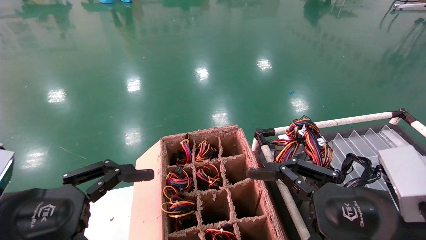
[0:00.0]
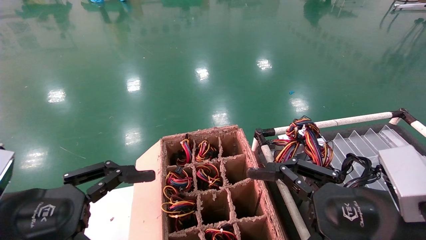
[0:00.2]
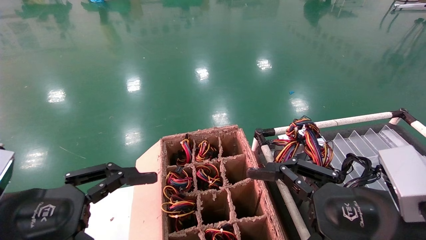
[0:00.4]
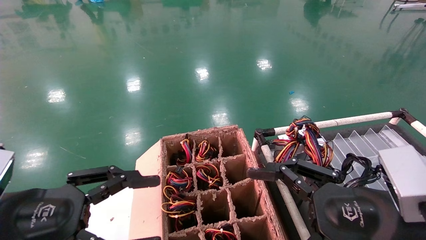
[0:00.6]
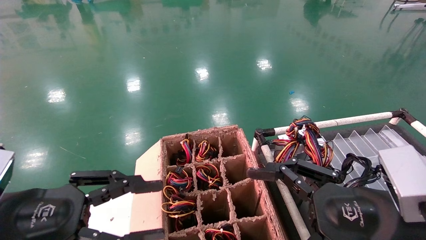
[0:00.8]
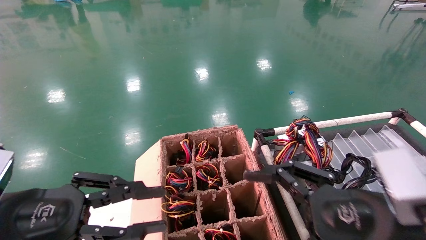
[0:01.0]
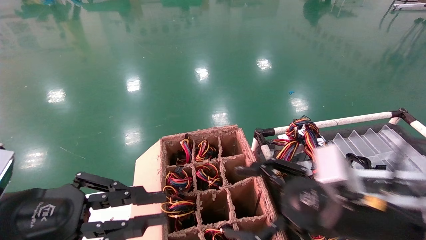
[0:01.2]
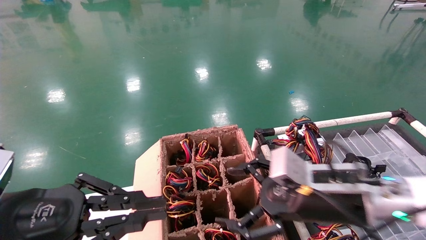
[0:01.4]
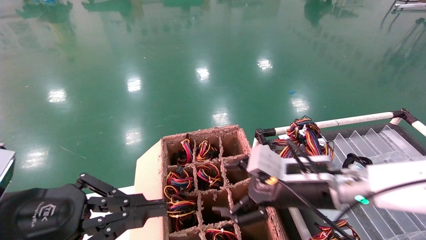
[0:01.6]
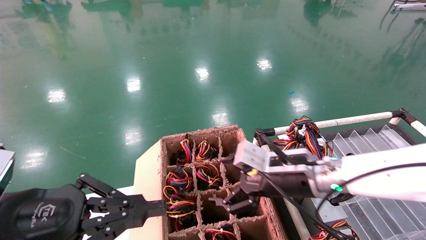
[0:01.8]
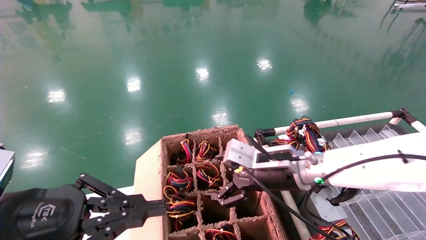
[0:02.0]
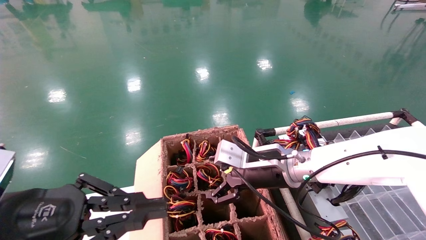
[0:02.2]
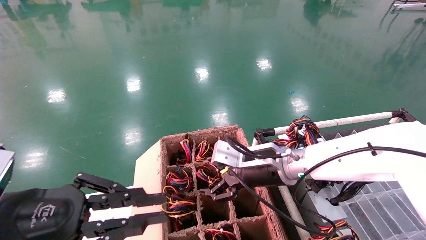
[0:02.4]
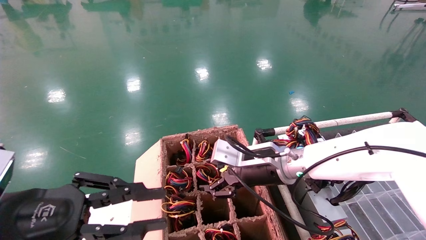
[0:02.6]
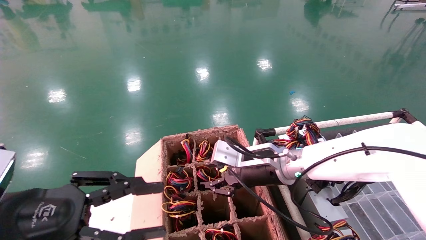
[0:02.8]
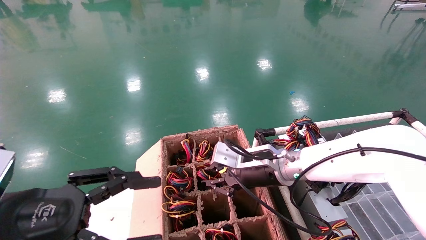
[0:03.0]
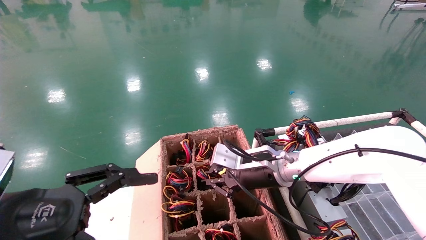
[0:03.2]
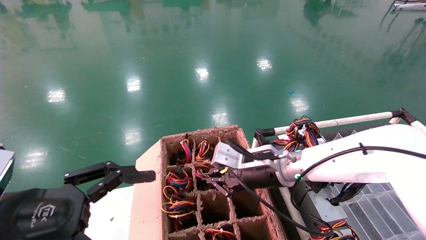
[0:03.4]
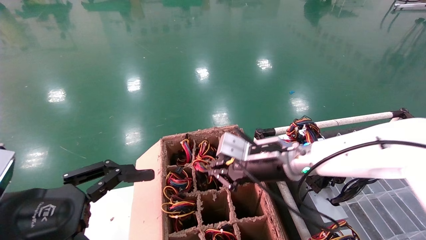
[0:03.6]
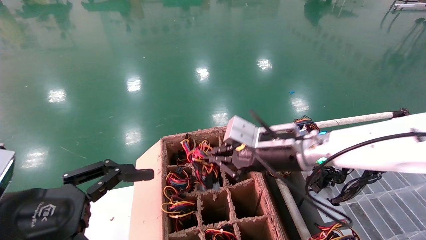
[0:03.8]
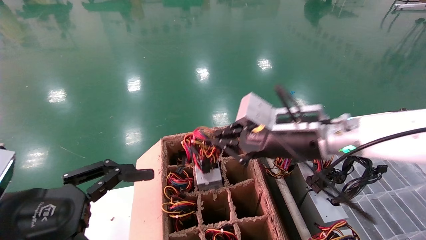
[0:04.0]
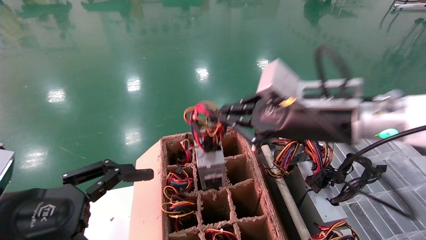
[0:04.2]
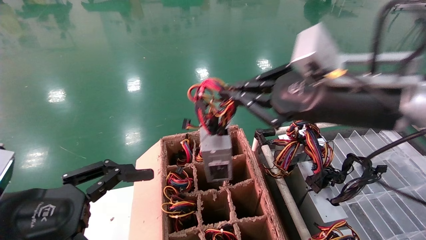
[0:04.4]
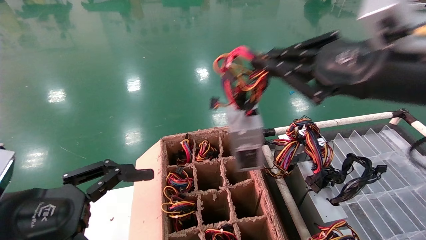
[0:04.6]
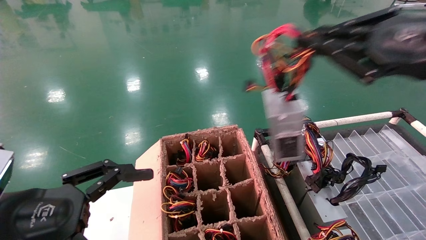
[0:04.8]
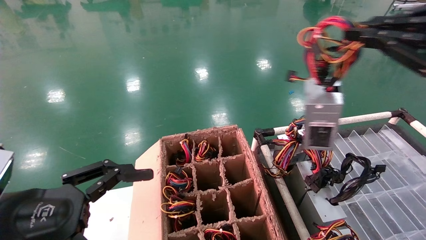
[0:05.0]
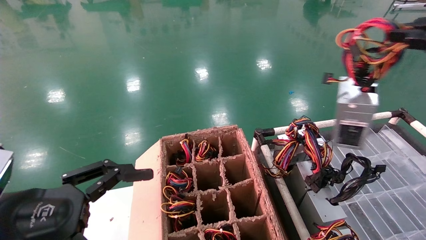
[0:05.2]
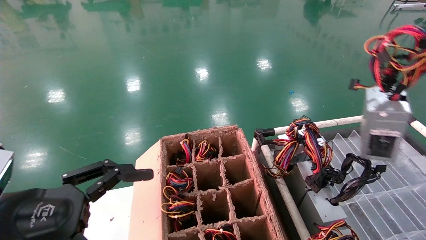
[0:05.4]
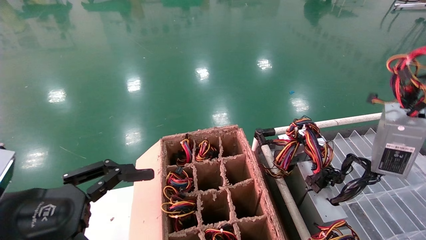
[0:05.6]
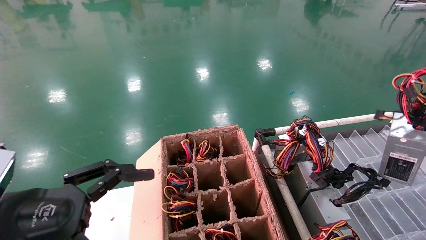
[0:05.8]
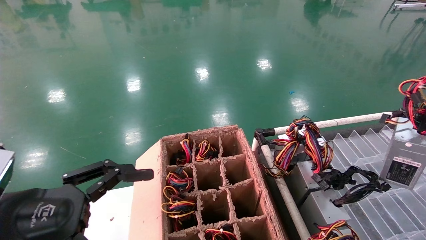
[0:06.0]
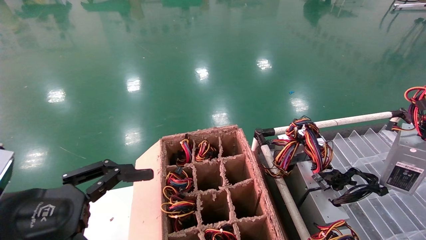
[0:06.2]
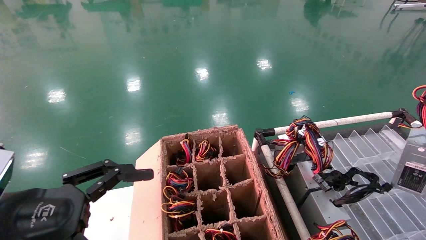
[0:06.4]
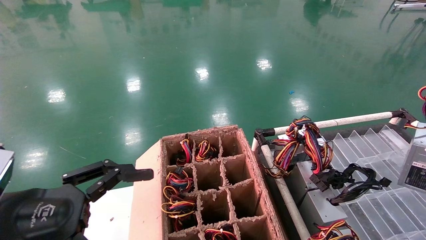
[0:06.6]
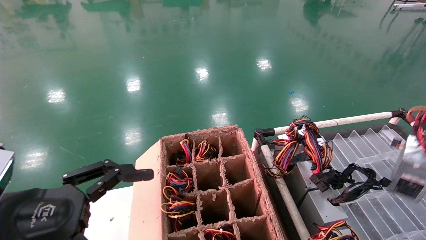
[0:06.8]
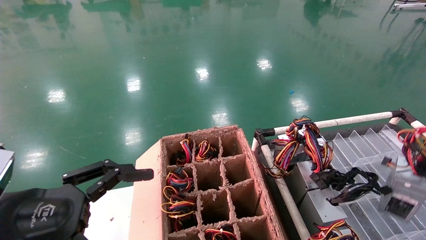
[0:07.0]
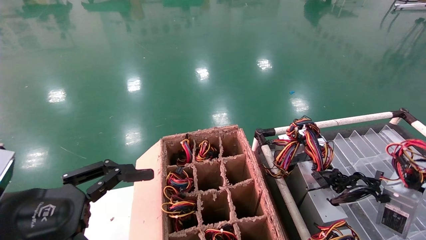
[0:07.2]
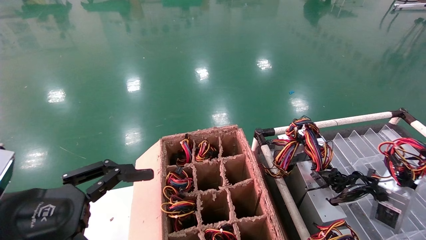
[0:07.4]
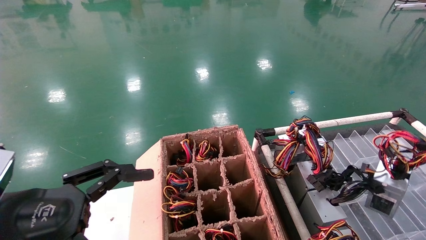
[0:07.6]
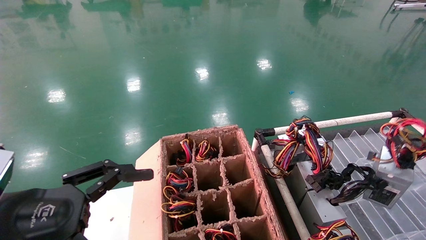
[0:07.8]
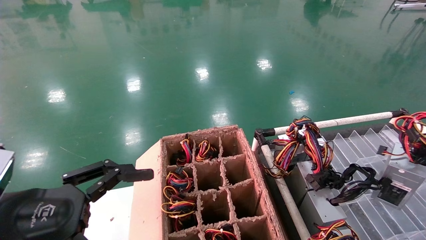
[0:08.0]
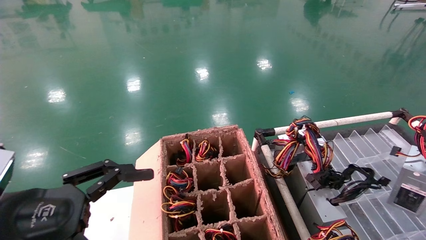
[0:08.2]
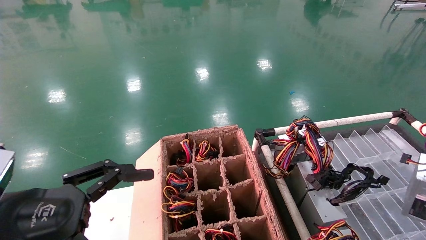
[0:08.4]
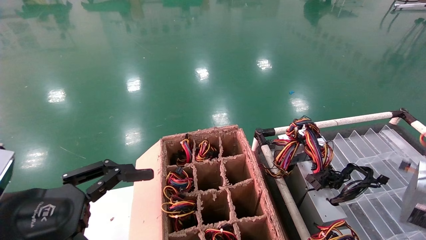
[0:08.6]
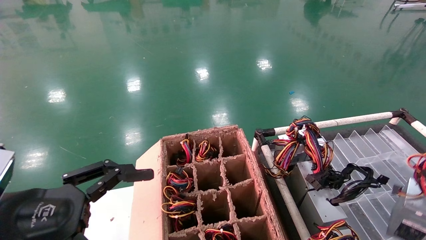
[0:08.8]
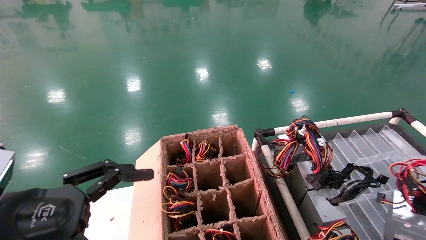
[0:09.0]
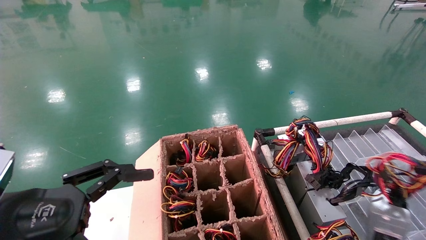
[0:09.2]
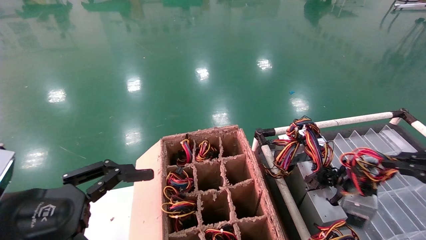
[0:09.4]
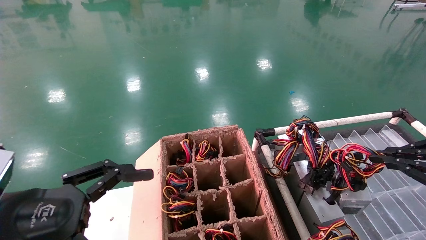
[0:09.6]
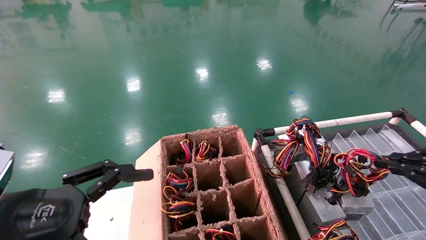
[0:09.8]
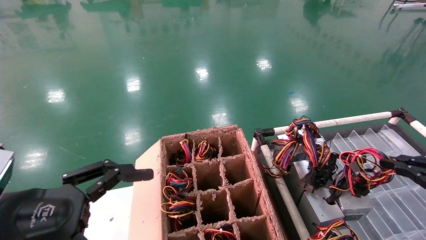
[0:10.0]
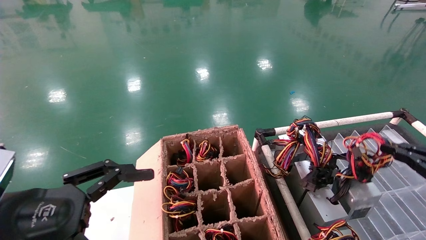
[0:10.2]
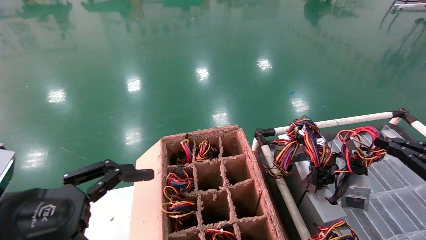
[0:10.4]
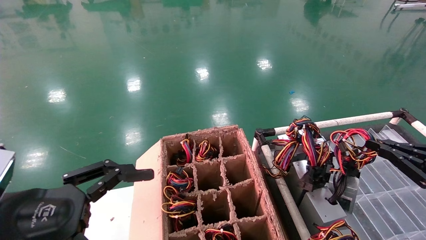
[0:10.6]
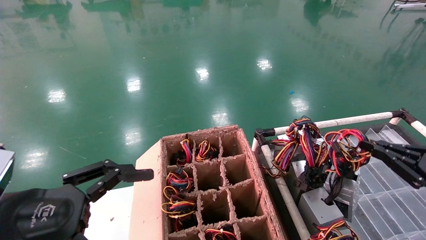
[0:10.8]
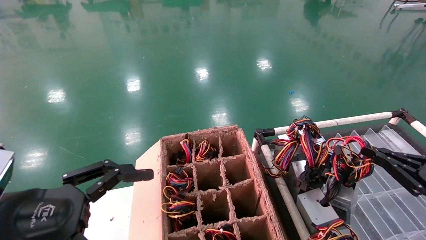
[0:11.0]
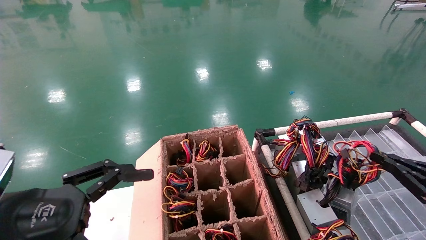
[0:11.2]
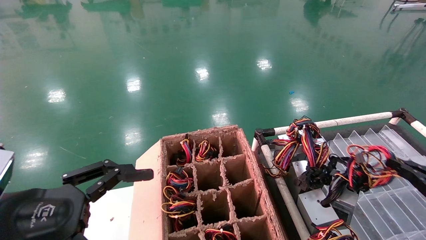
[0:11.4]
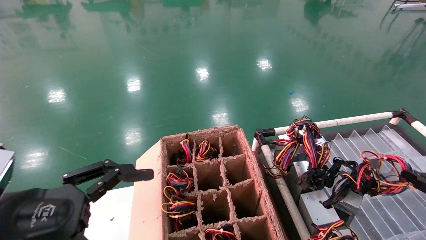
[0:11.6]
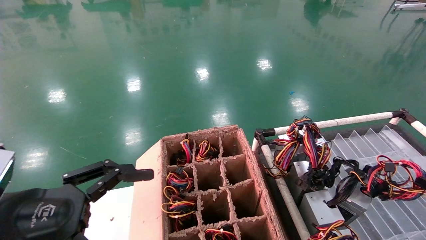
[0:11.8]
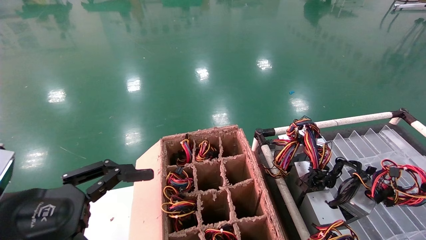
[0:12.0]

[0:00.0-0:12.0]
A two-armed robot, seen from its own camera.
Step, 0:00.8 to 0:03.4: Grab and lift the power supply from the large box.
0:00.0 to 0:01.6: The right gripper goes some 15 cm forward and to the left. The left gripper closes.
0:01.6 to 0:03.0: The left gripper opens its fingers. The right gripper heads forward and to the left, covering approximately 10 cm, and closes up.
0:03.0 to 0:04.4: The left gripper opens, while the right gripper goes approximately 25 cm upward, backward and to the right.
0:04.4 to 0:06.0: The right gripper is displaced to the right by some 30 cm.
0:06.0 to 0:07.6: The right gripper heads downward, covering some 5 cm.
0:09.0 to 0:10.4: The right gripper travels forward and downward by some 10 cm.
0:10.4 to 0:12.0: The right gripper moves downward, backward and to the right, roughly 10 cm.

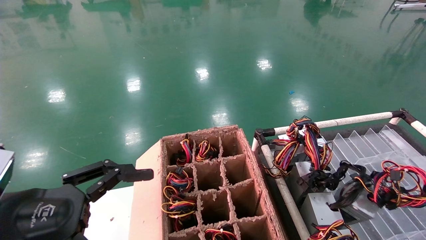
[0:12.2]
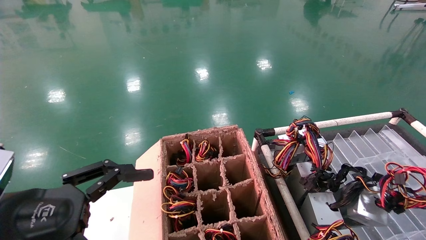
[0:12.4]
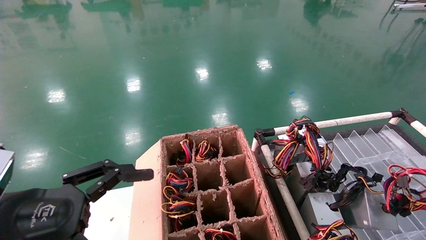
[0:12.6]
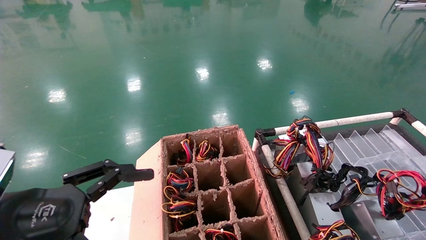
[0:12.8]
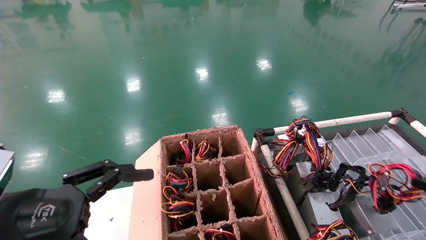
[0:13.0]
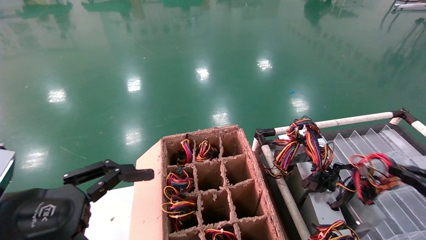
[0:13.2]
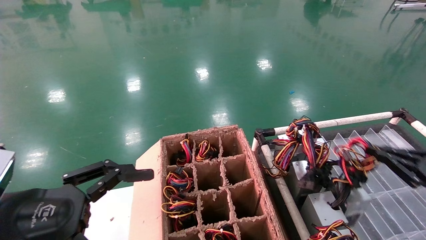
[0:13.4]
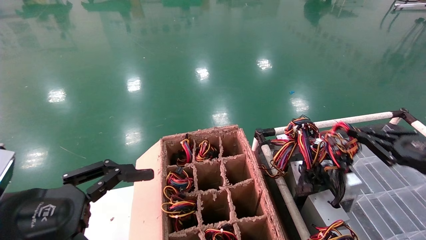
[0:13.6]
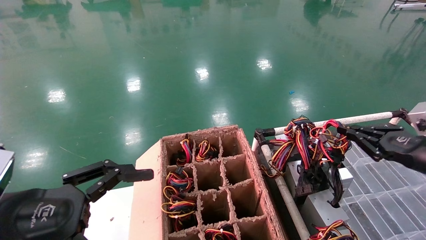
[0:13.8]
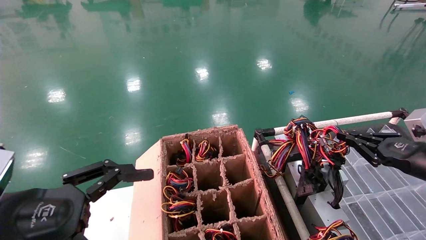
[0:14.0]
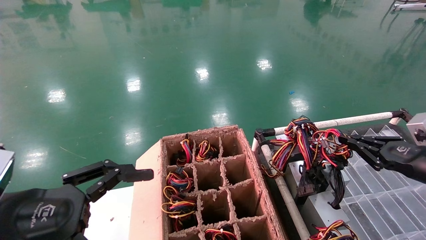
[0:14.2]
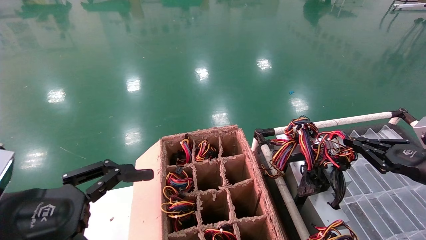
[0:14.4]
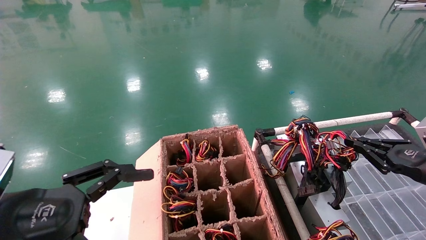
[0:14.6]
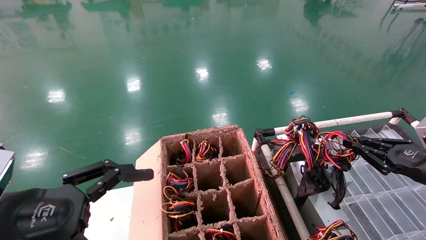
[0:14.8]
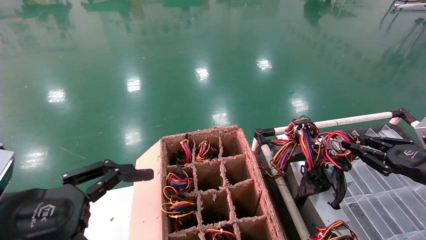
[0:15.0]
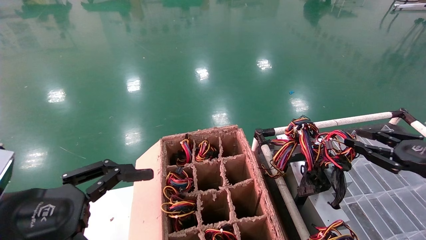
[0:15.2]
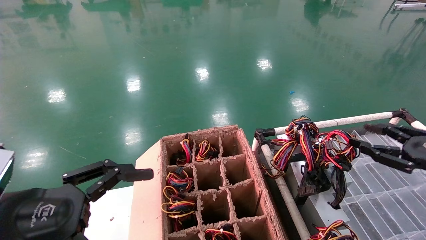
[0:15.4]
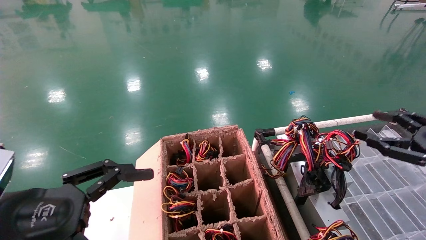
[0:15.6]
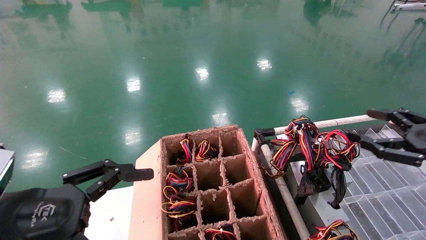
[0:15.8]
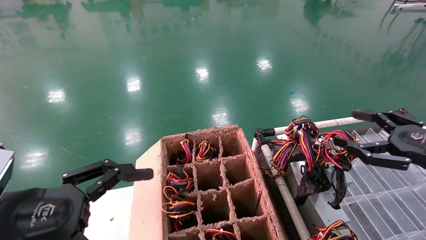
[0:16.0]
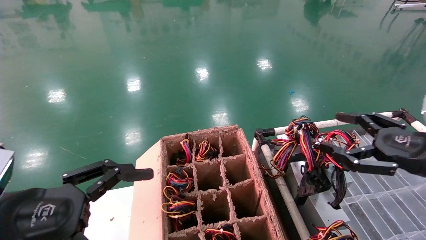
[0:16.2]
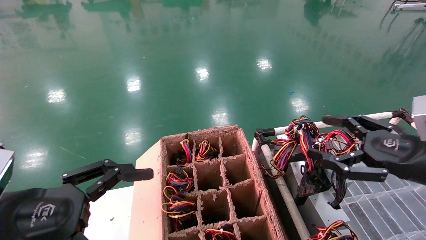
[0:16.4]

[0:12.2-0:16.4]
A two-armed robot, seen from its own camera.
Step, 0:12.2 to 0:14.8: Place the power supply on the operating table.
0:12.2 to 0:13.6: The right gripper heads forward, upward and to the left, covering roughly 15 cm.
0:13.6 to 0:15.0: The grippers make only small movements.
0:15.0 to 0:16.4: The right gripper shifts about 10 cm to the left, and opens.
